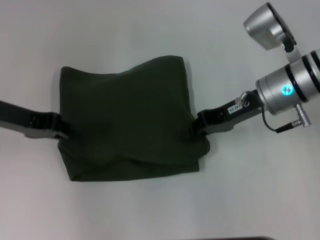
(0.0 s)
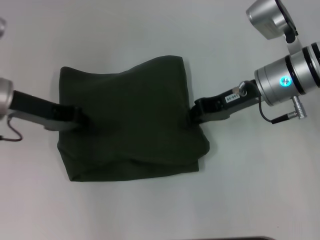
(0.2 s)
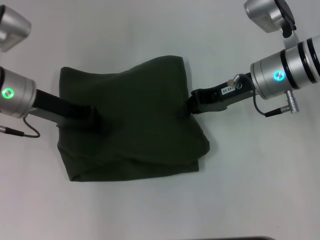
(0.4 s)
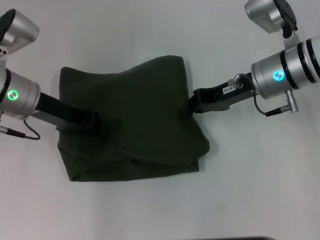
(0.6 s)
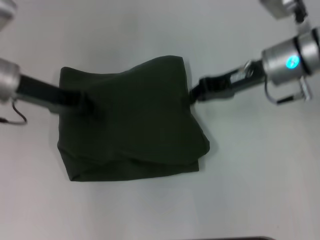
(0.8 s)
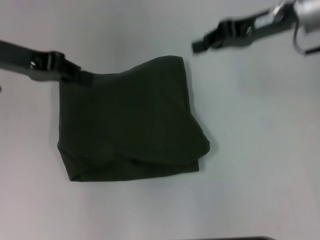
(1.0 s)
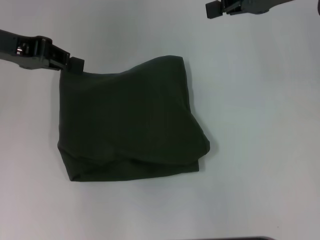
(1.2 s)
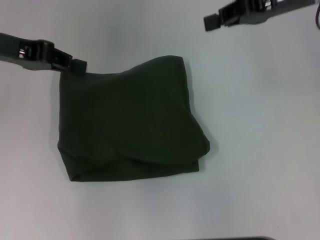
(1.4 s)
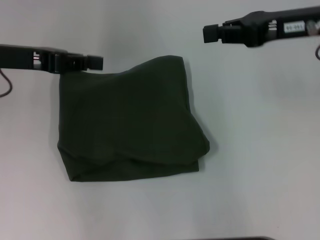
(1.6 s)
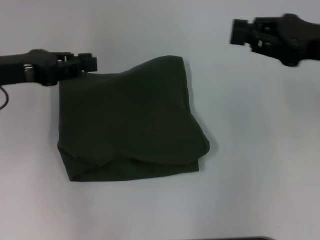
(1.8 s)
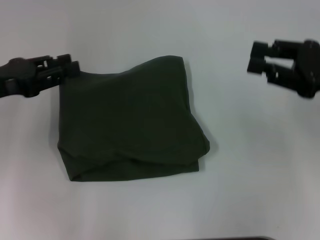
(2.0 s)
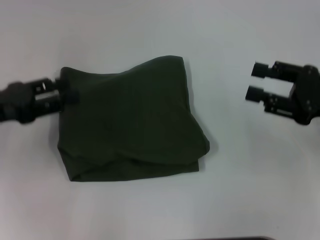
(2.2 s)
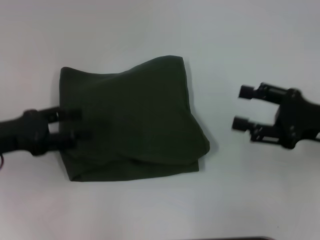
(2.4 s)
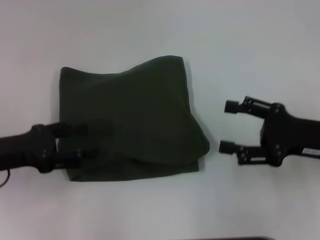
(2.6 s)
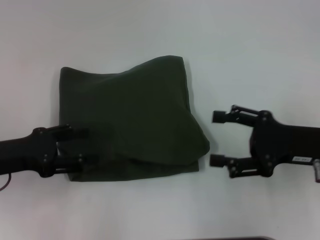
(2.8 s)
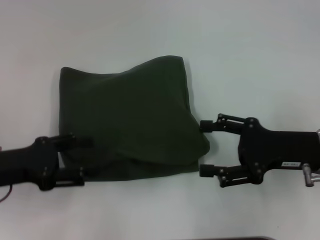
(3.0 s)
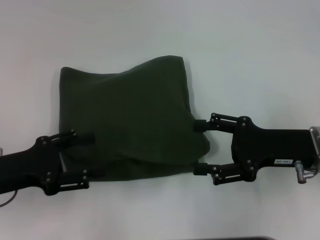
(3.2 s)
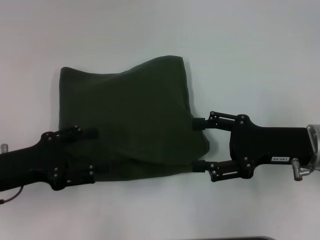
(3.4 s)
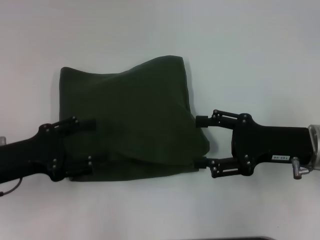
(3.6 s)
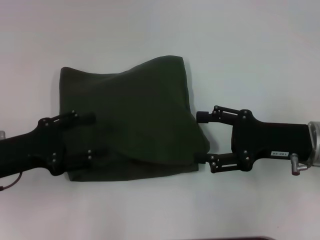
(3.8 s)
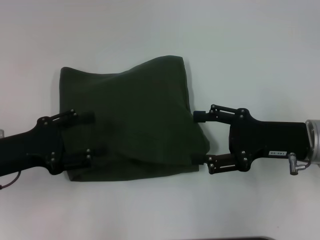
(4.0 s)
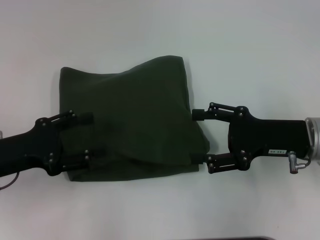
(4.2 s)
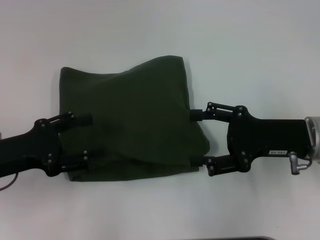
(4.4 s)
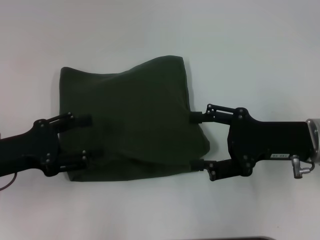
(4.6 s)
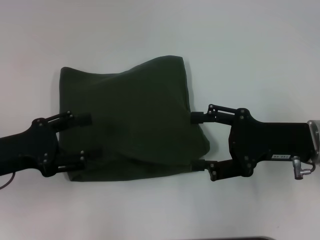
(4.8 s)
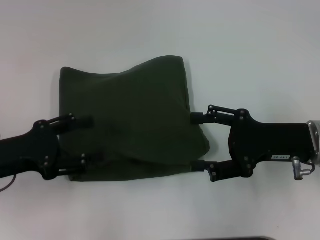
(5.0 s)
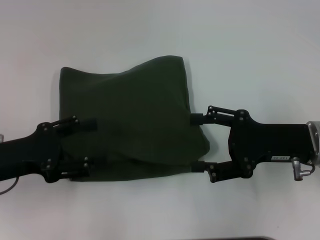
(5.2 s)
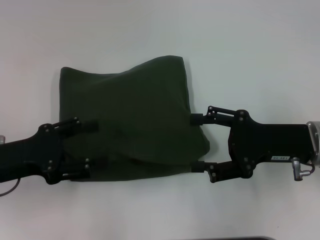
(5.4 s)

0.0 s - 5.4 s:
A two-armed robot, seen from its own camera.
0.0 s - 1.4 s: The left gripper moves upward, about 5 cm, while the right gripper is displaced upward by about 10 cm.
1.4 s - 2.8 s: The right gripper moves backward and downward, some 20 cm, and opens up, while the left gripper moves downward and backward, roughly 15 cm, and opens.
2.8 s - 5.4 s: The grippers stay close to where they were, moving slightly.
